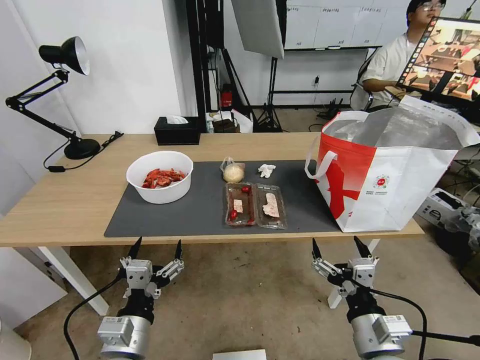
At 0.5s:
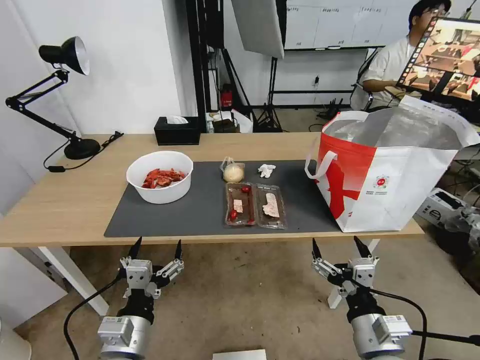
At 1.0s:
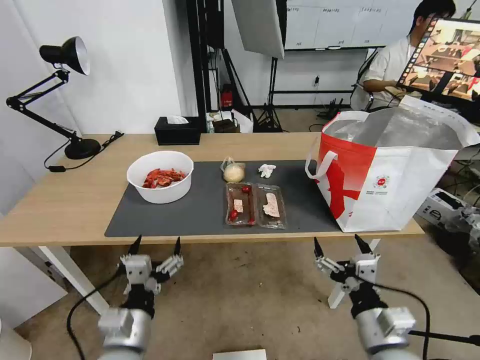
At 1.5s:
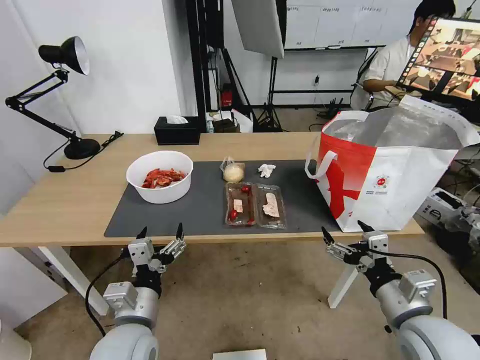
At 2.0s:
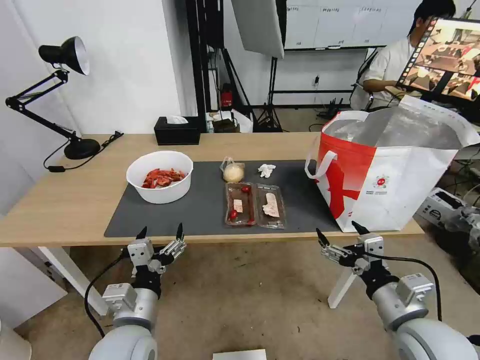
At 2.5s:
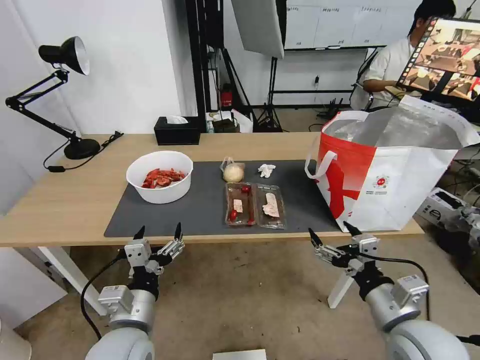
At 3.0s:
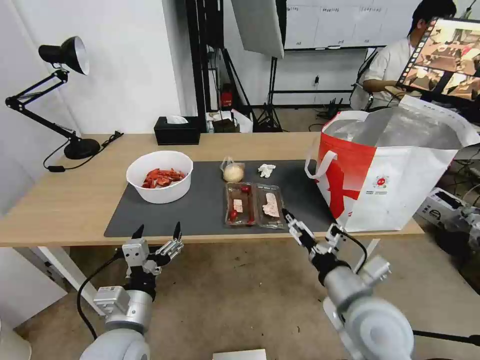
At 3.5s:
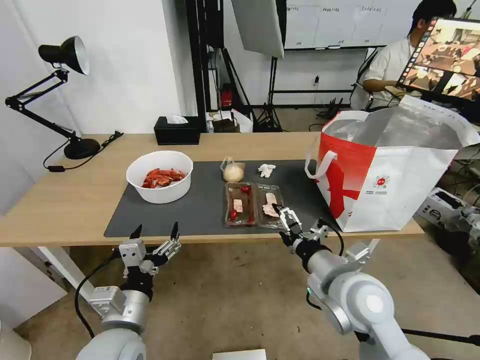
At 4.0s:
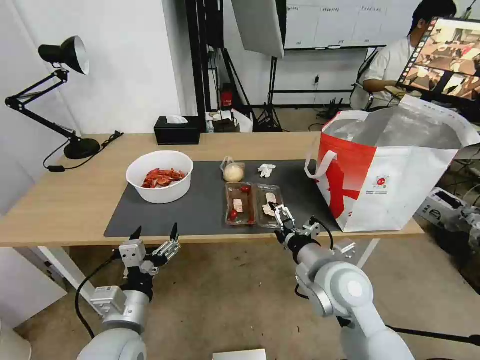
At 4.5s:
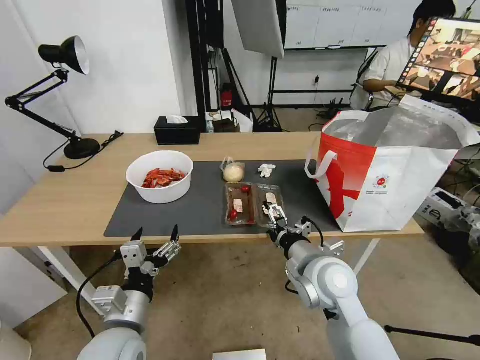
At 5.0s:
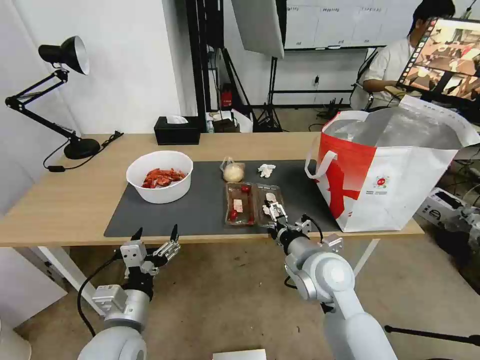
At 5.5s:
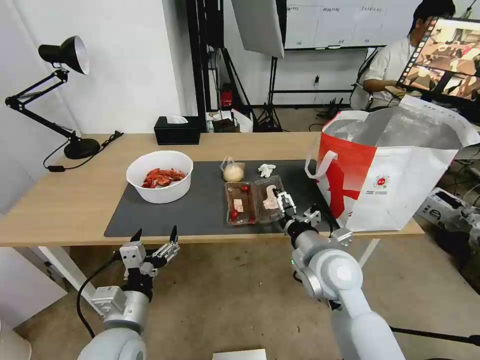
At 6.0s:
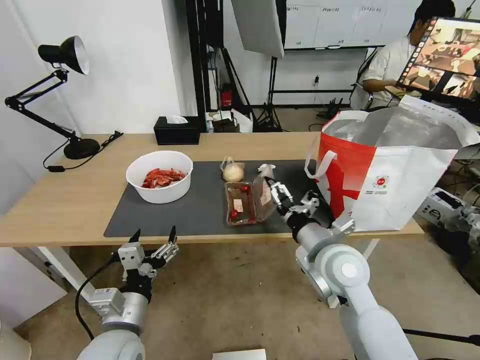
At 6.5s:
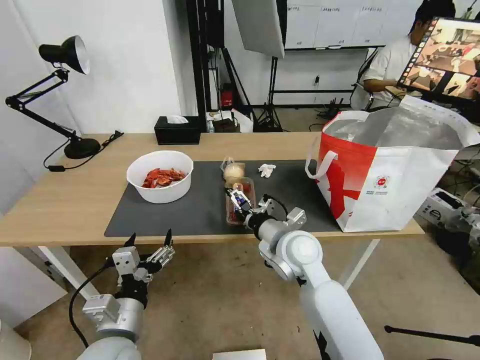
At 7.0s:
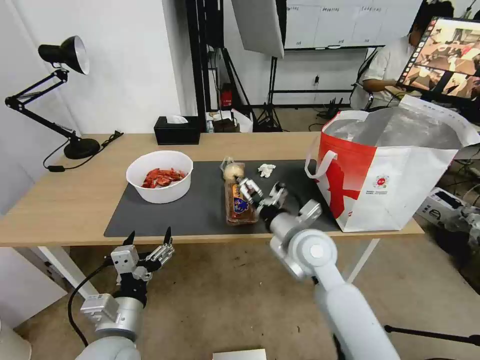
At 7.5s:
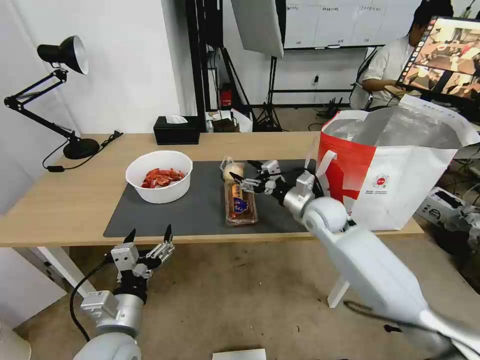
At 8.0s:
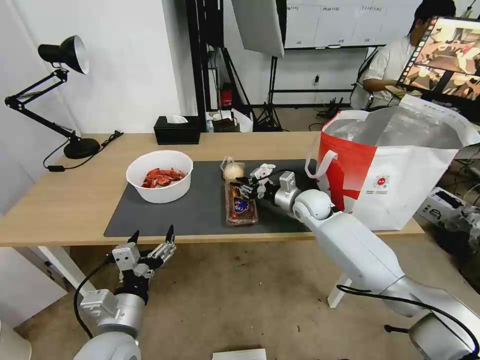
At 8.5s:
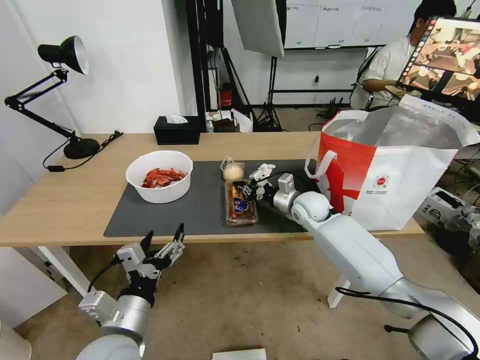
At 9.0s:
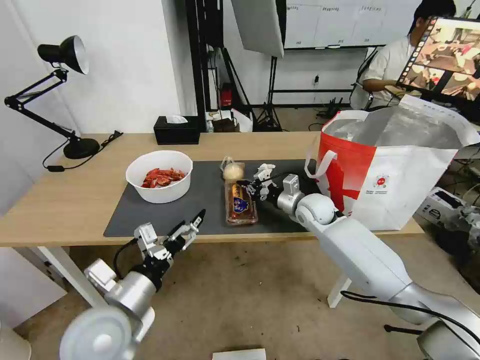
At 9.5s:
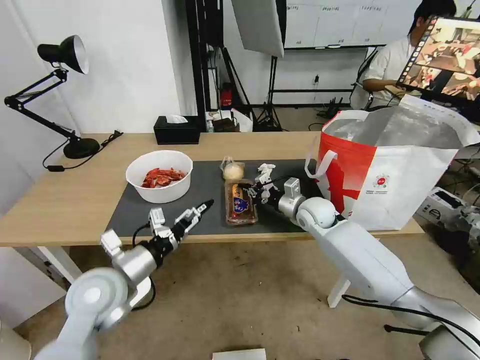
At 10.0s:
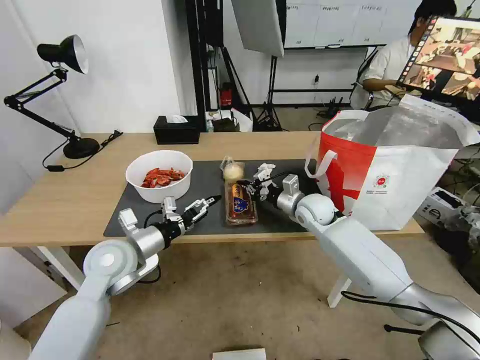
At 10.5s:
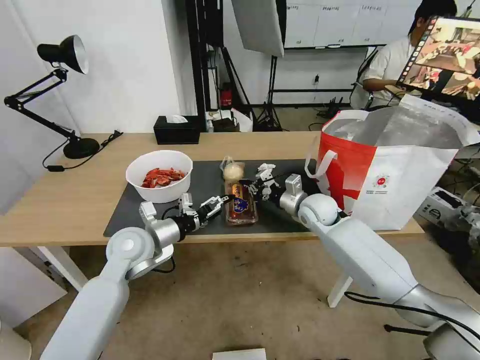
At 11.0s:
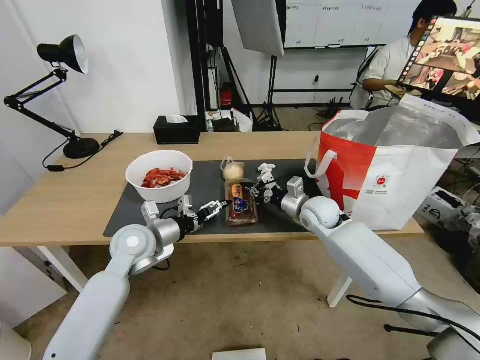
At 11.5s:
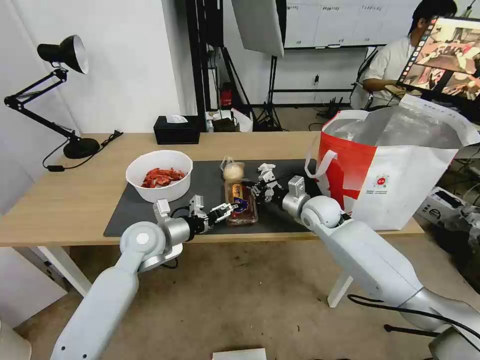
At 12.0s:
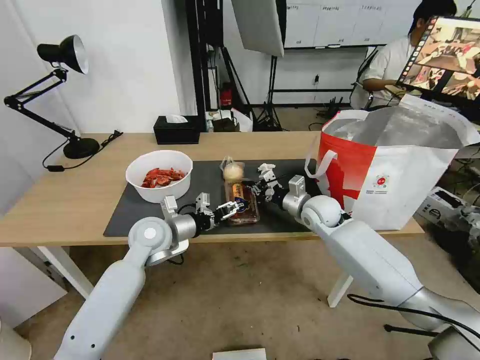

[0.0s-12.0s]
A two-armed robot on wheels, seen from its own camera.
Task of the whole recording: Pick up the trash from the table and place it into the takeout bag.
2.0s to 4.0s: The right gripper heads to the left and forward, covering about 15 cm.
4.0s to 6.0s: There are only small adjustments of the grippers.
6.0s to 8.0s: The right gripper travels forward by about 20 cm, and closes its fingers.
8.0s to 10.0s: The left gripper is displaced forward by roughly 15 cm.
10.0s to 12.0s: The left gripper travels forward and to the right by approximately 10 cm.

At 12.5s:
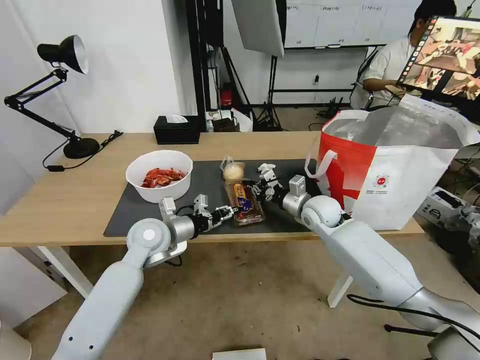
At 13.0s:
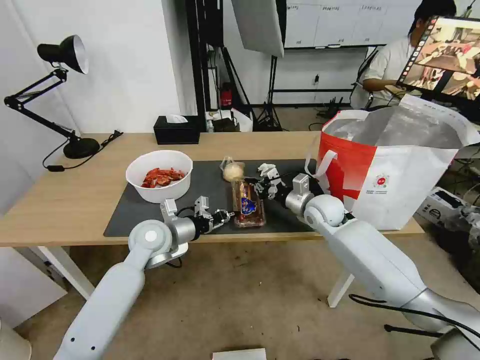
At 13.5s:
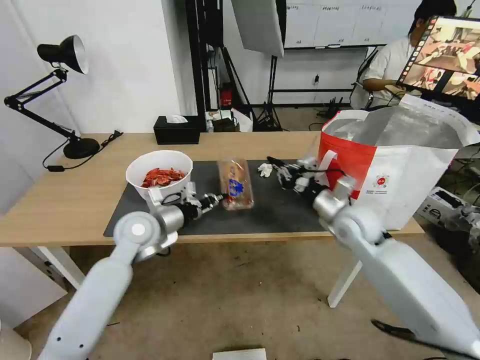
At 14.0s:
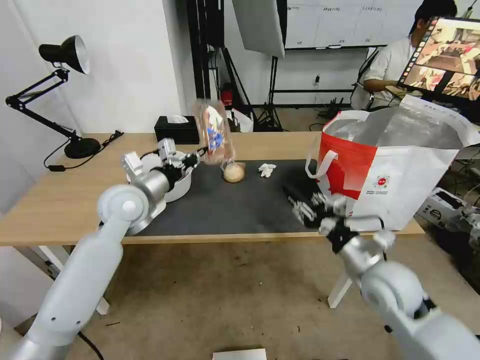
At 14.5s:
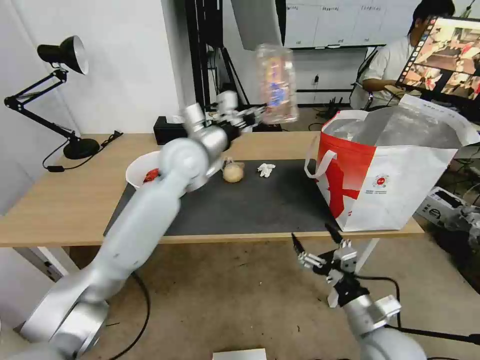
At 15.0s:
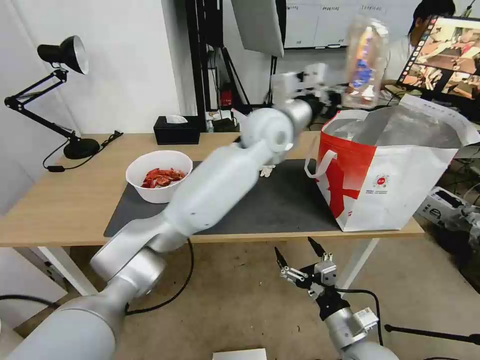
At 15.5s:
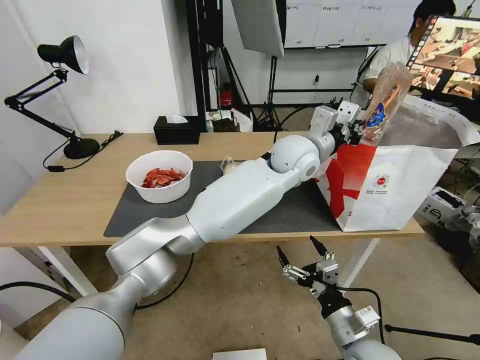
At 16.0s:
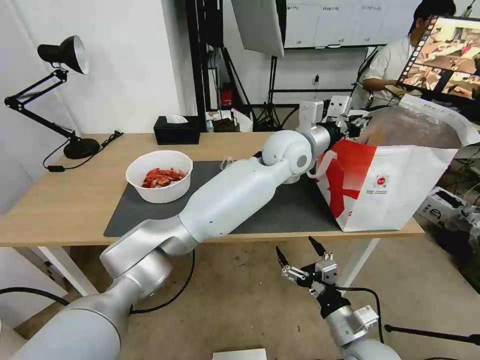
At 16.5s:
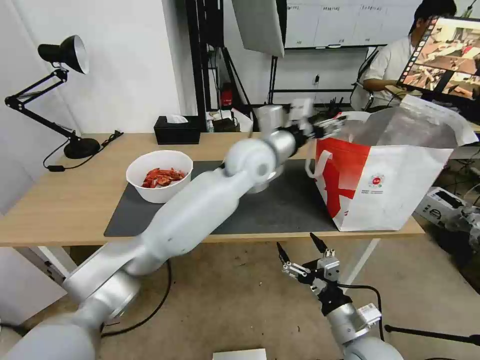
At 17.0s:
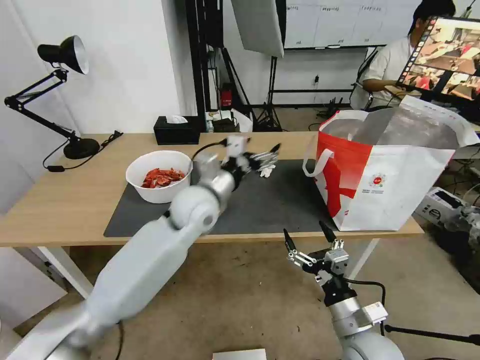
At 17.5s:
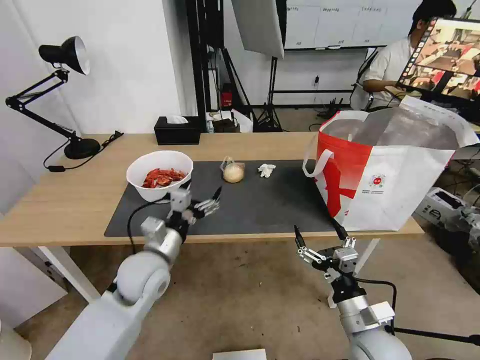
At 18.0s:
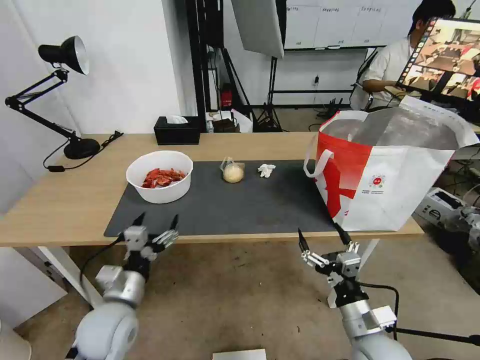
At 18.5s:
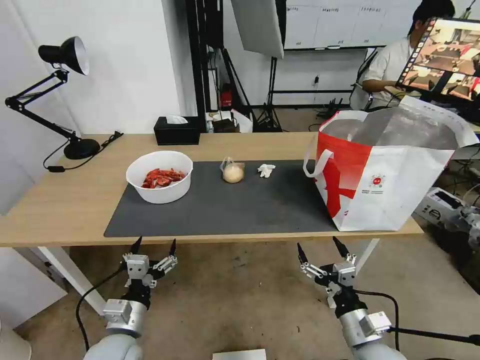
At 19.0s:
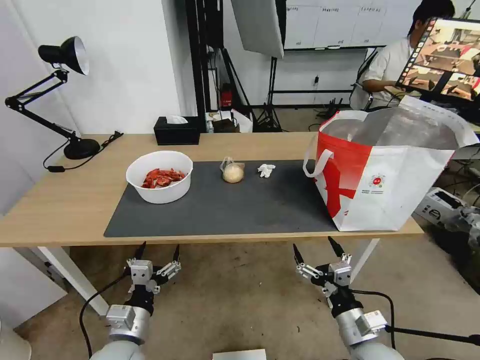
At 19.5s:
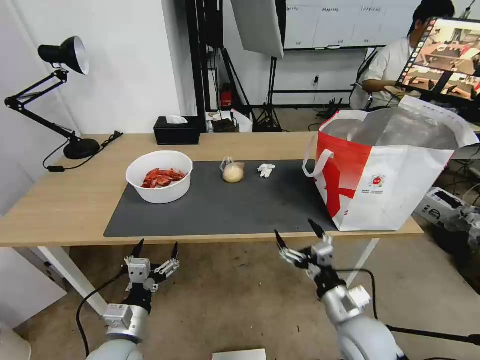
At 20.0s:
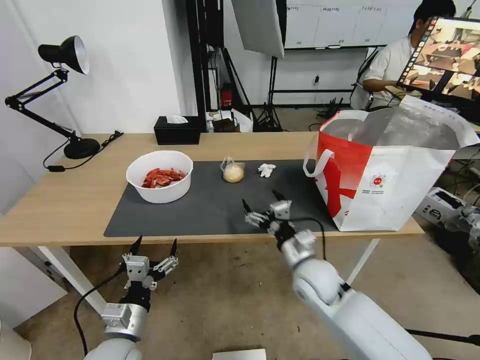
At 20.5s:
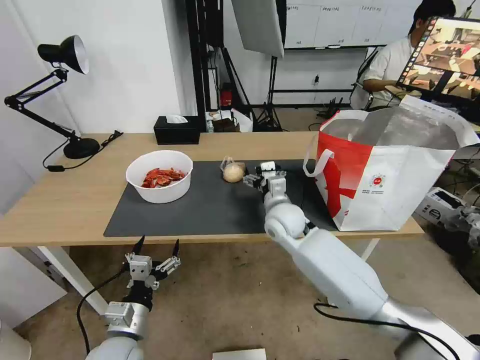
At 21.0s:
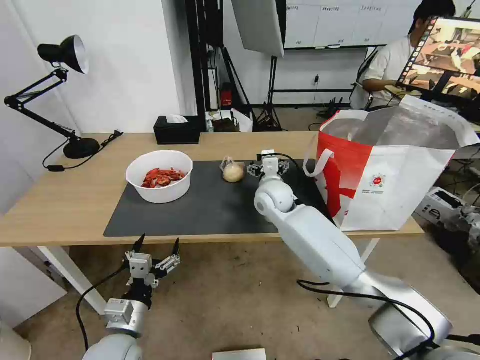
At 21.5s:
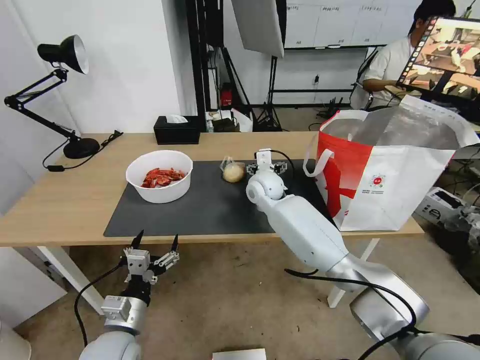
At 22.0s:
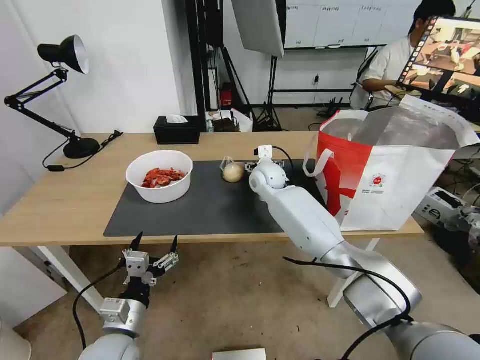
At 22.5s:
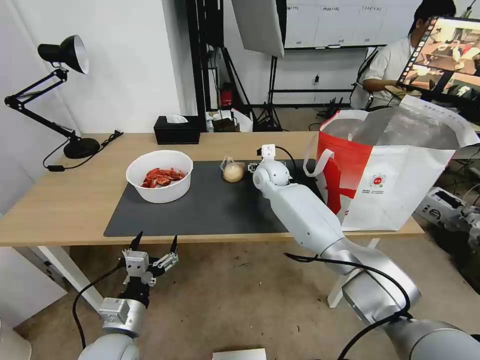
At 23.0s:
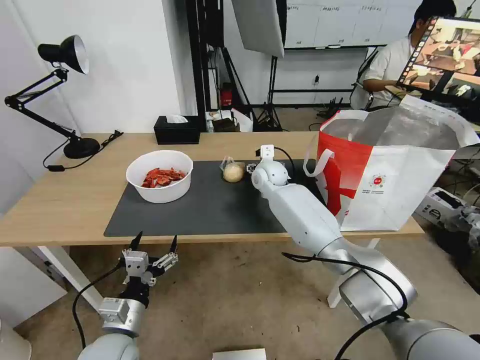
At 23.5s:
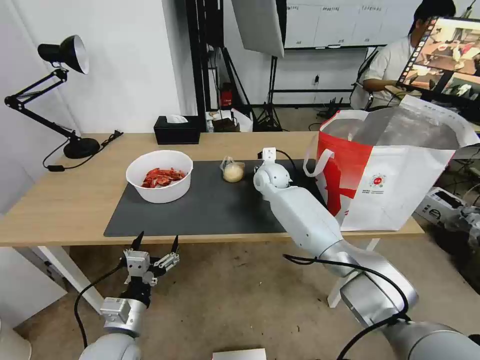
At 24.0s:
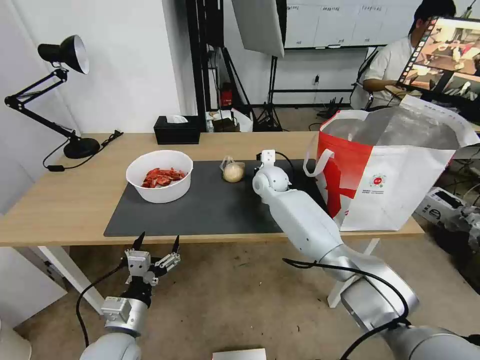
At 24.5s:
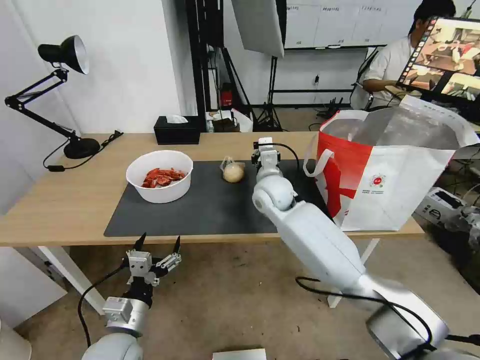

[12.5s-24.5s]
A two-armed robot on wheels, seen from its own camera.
Task of the whole recording: Pick up the trash from the table and place it into the takeout bag.
12.5s to 14.5s: The left gripper heads upward, to the right and forward, covering about 20 cm, and closes. The right gripper heads backward, covering approximately 30 cm, and opens up.
14.5s to 16.5s: The left gripper is displaced to the right by about 15 cm, and opens up.
16.5s to 18.5s: The left gripper moves backward, downward and to the left, about 50 cm.
18.5s to 20.5s: The right gripper shifts roughly 30 cm forward and to the left.
20.5s to 22.5s: The right gripper travels forward by roughly 15 cm.
22.5s to 24.5s: The right gripper goes some 10 cm backward, and closes.

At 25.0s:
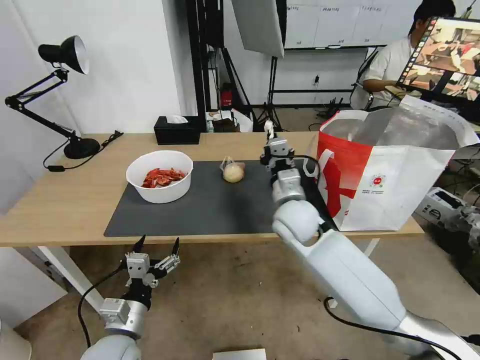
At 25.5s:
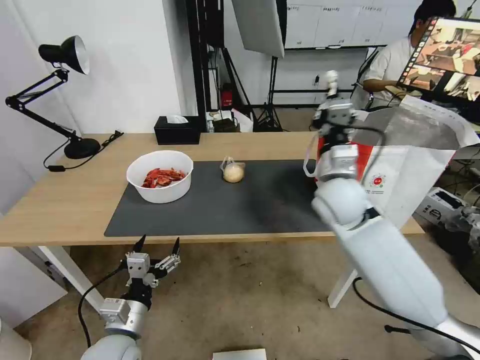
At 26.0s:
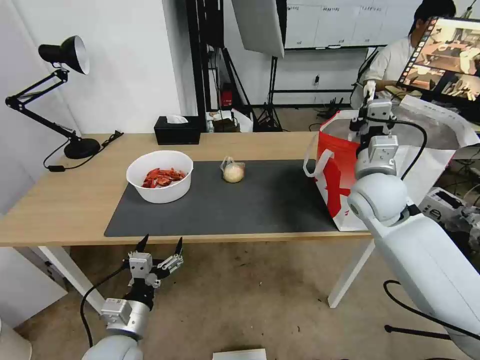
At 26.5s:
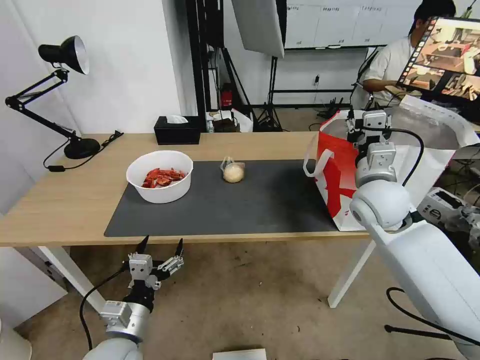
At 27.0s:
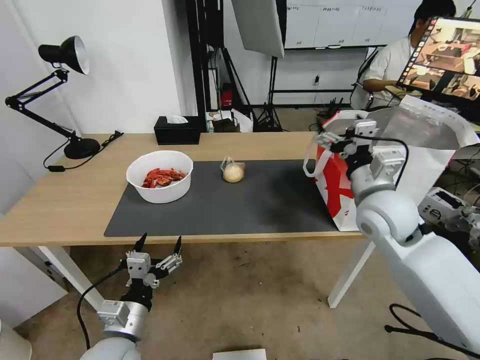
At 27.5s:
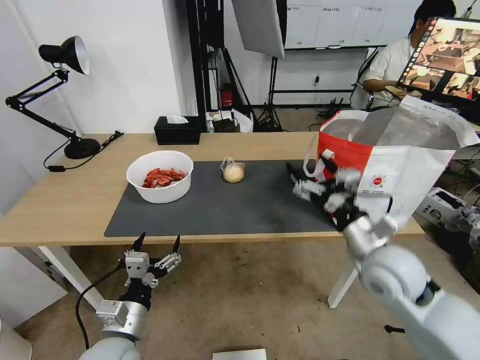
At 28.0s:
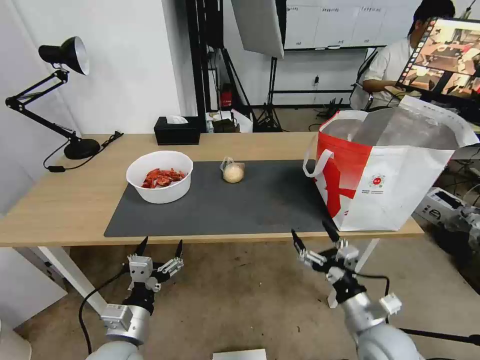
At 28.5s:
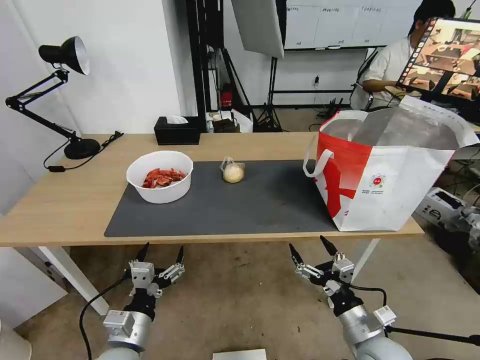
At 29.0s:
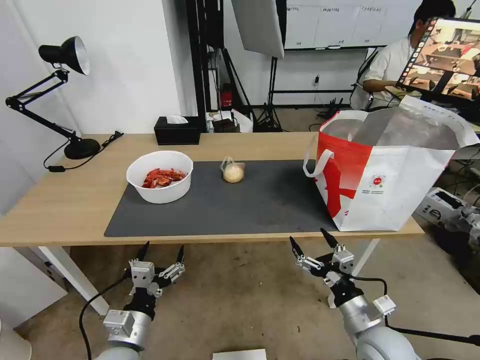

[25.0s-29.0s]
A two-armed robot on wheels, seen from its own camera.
Task of the whole recording: Pick up the trash from the table and place it into the takeout bag.
25.0s to 27.0s: The right gripper goes roughly 15 cm to the right and upward, and opens.
27.0s to 29.0s: The right gripper heads downward and backward, covering about 25 cm.
